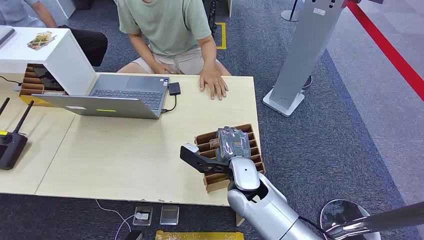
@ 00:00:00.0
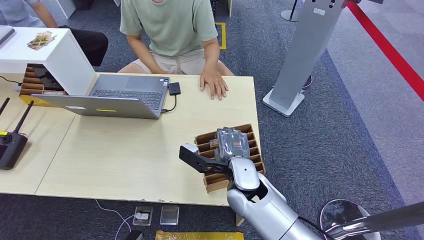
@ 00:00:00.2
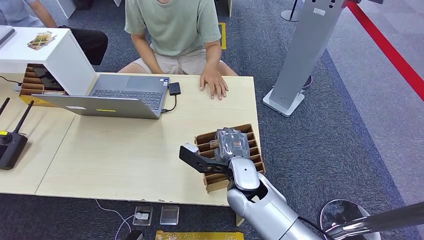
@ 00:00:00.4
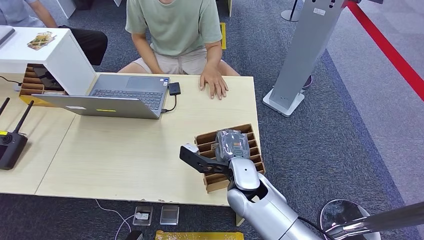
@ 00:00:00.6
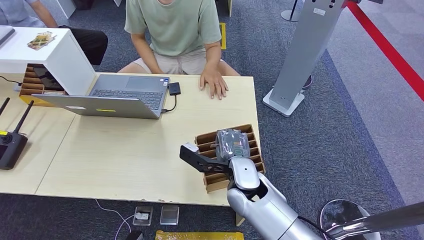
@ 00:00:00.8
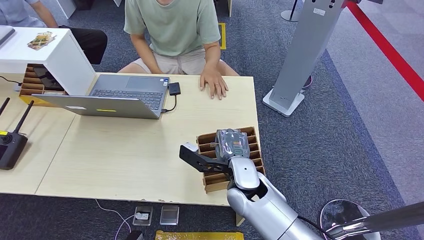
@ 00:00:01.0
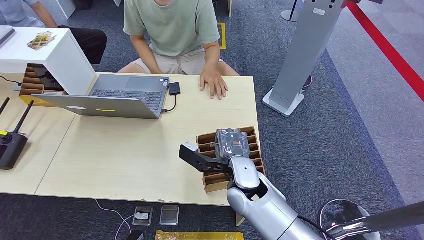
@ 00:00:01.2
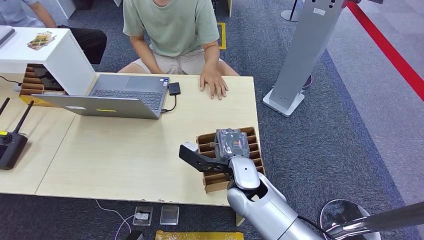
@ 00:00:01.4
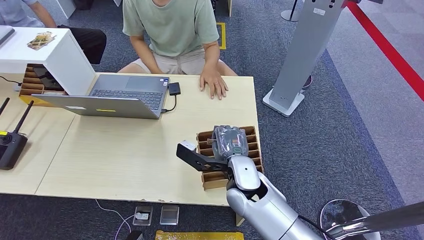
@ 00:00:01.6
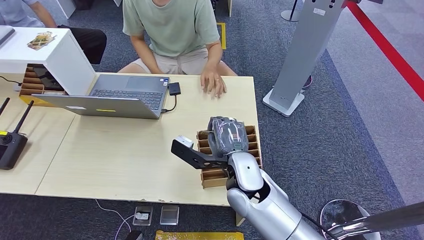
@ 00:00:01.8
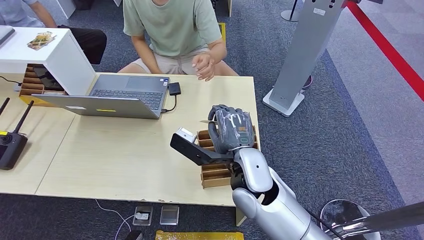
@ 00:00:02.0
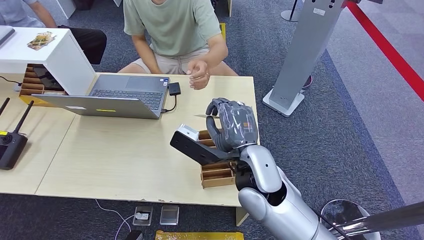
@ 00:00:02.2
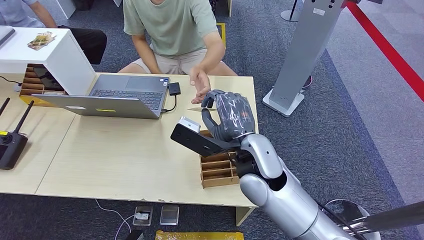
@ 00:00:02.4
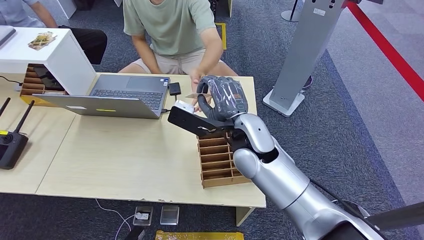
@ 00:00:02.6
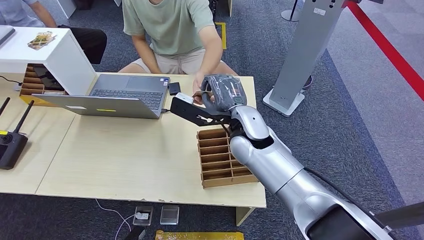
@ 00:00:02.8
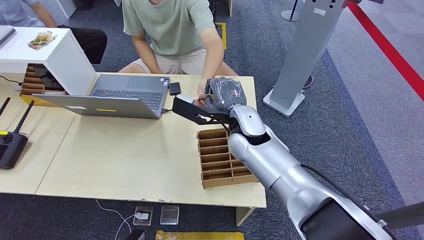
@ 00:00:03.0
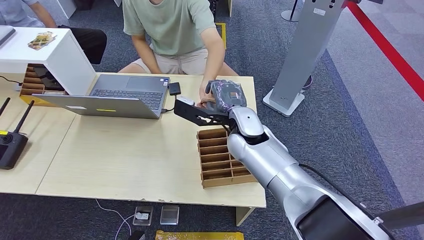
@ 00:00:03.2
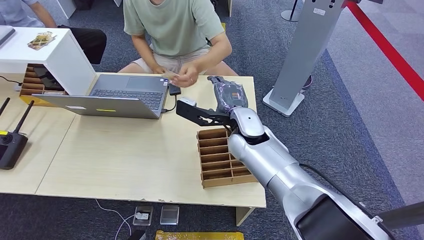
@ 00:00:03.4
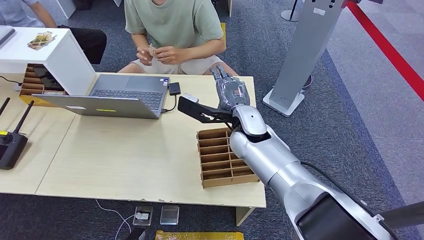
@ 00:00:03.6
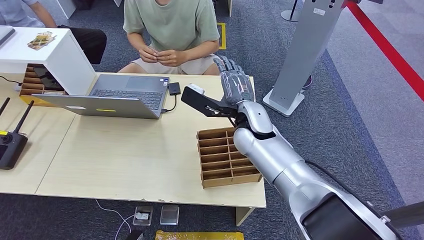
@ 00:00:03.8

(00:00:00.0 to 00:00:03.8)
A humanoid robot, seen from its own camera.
Step, 00:00:00.0 - 00:00:01.8: Pick up the room card from the card holder.
Step, 00:00:02.6 - 00:00:03.8: Hand the room card to the target.
00:00:01.2 - 00:00:02.6: The right hand is displaced upward by roughly 10 cm.
00:00:02.6 - 00:00:03.8: The right hand heads forward, covering about 5 cm.

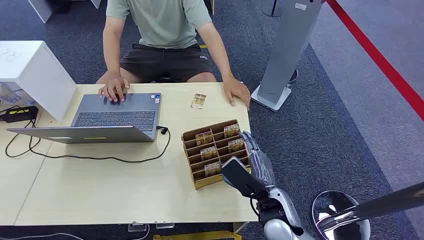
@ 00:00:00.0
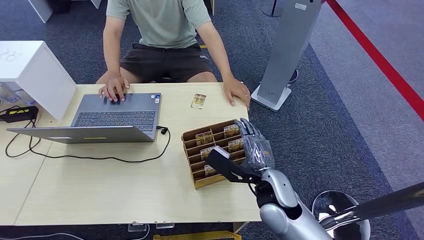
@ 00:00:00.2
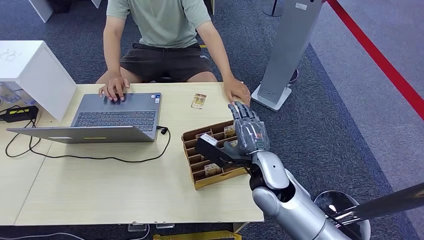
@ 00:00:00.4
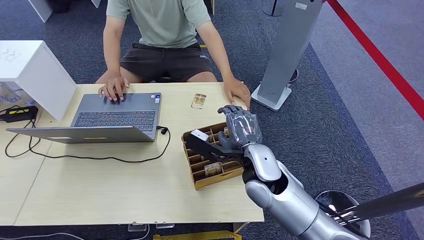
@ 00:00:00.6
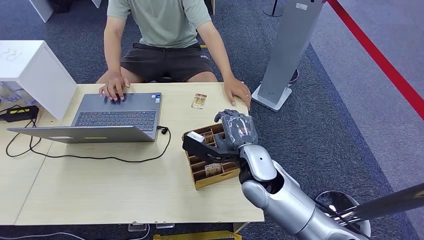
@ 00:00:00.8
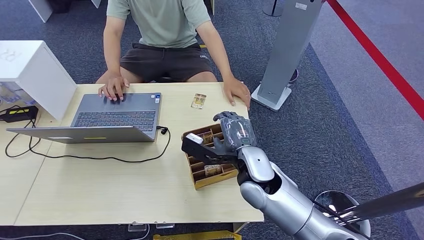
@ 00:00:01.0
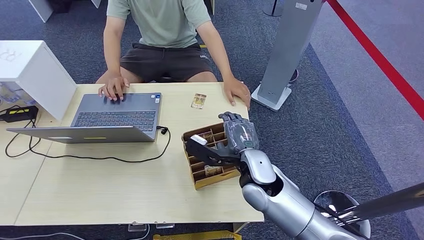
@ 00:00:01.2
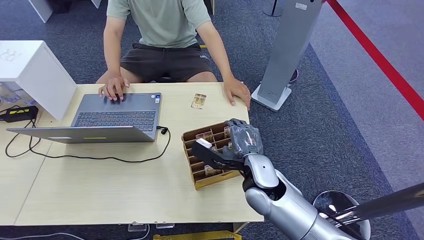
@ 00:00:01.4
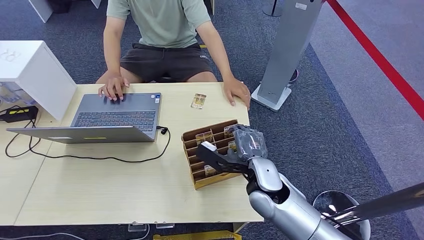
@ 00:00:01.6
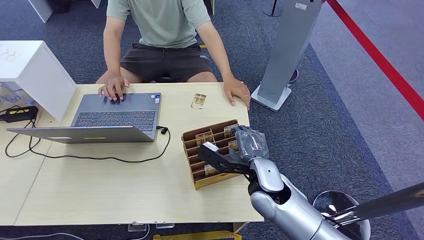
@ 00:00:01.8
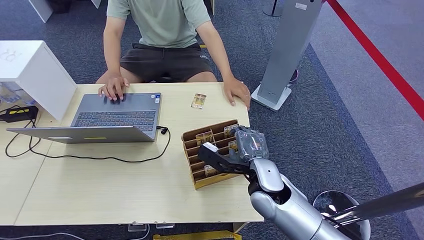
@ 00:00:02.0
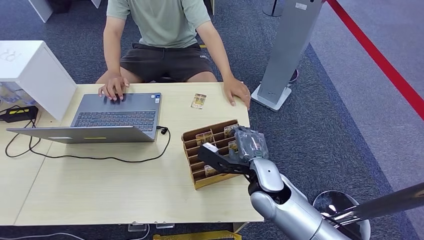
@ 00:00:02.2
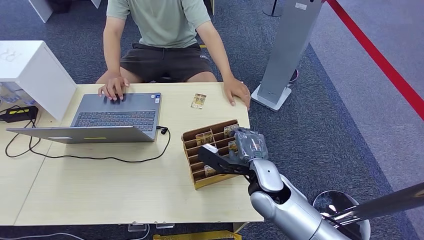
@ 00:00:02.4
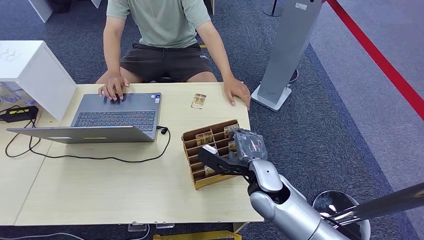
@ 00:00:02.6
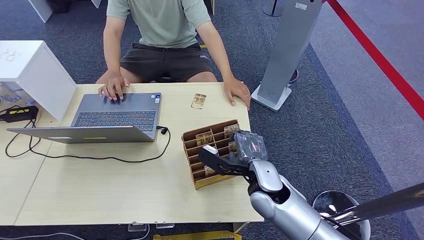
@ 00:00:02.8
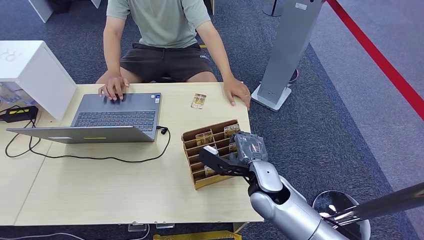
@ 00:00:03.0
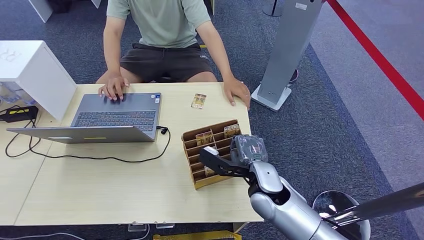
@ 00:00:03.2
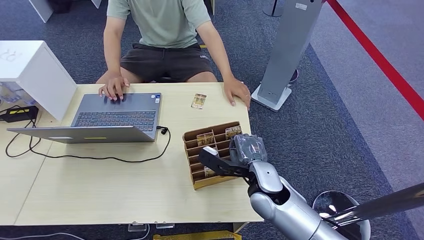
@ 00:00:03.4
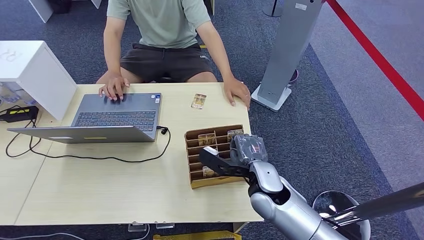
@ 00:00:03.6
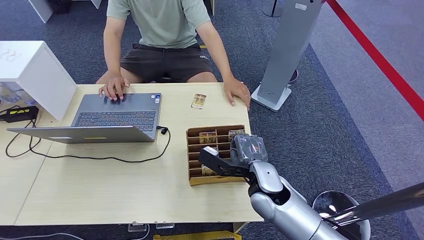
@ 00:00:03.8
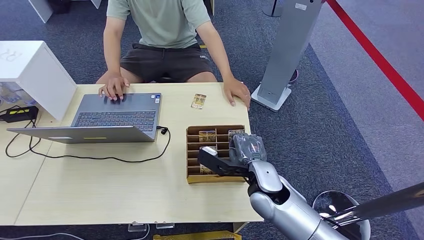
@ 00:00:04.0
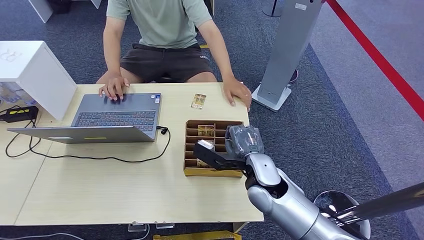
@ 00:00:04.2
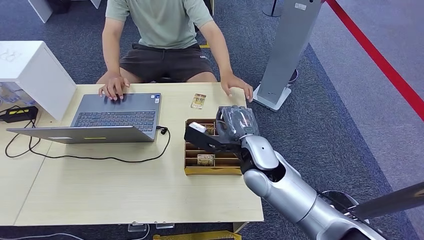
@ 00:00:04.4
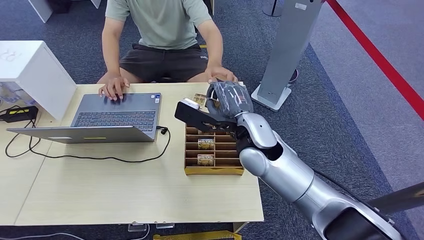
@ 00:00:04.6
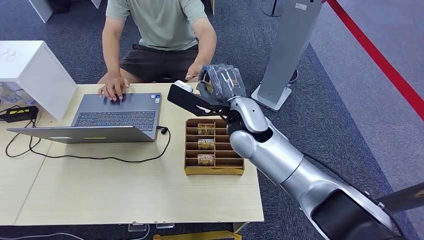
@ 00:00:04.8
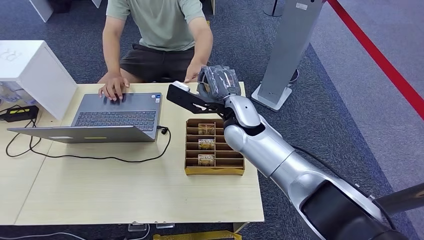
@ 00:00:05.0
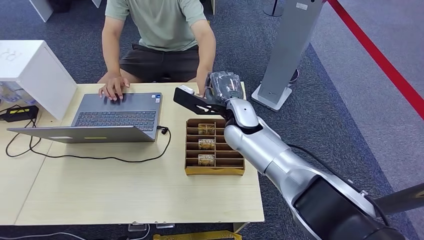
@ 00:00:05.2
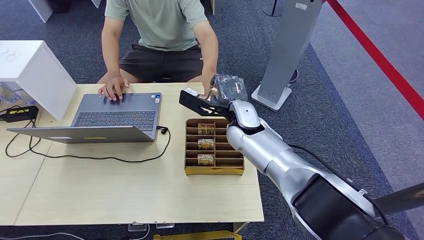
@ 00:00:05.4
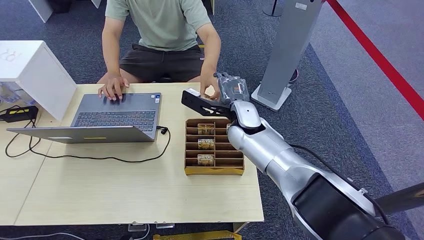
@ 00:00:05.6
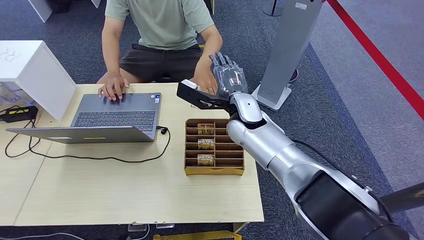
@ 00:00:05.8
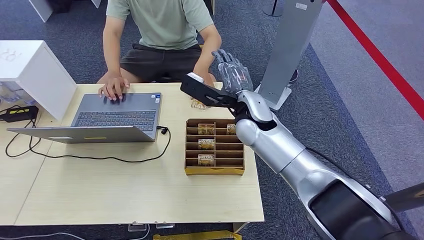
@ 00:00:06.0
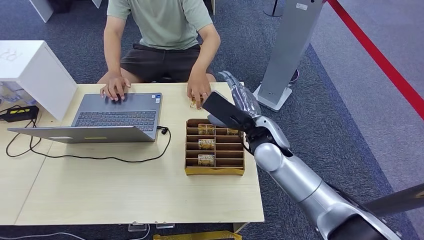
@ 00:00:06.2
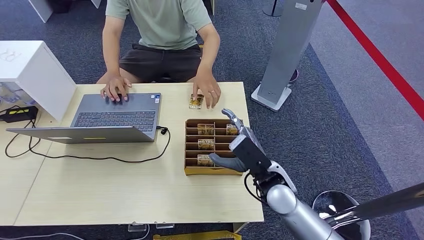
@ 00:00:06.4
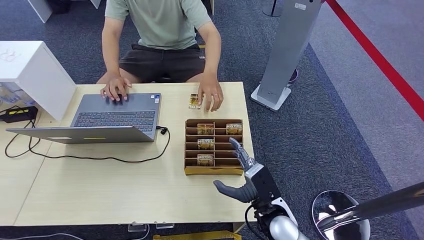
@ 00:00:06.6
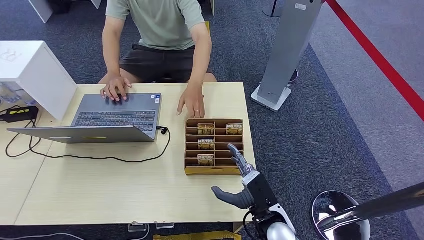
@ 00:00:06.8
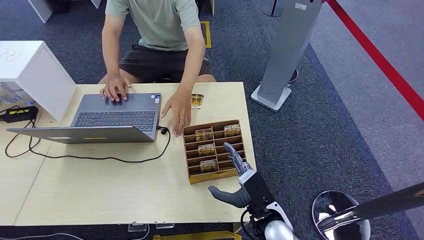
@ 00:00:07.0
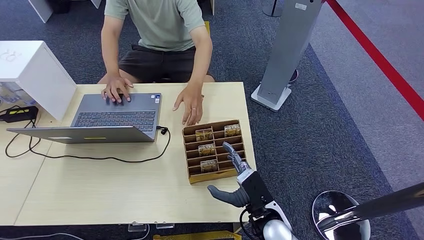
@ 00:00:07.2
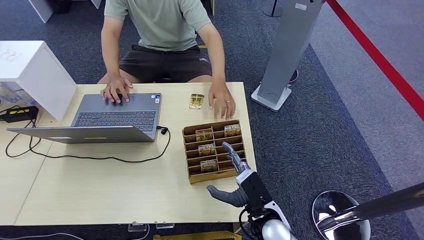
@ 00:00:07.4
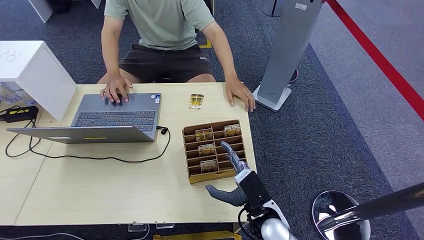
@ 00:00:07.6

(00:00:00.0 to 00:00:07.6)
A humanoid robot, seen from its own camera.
Step, 00:00:00.0 - 00:00:04.4: Pick up the room card from the card holder.
Step, 00:00:04.6 - 00:00:07.6: Hand the room card to the target.
00:00:01.6 - 00:00:03.0: The hands stay close to where they were, moving slightly.
00:00:03.0 - 00:00:04.6: The right hand shifts roughly 15 cm upward and forward.
00:00:04.6 - 00:00:06.0: The right hand travels forward by roughly 5 cm.
00:00:06.0 - 00:00:07.6: The right hand goes about 25 cm backward and downward.
